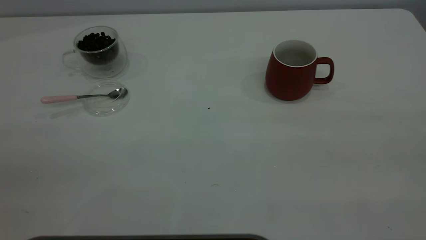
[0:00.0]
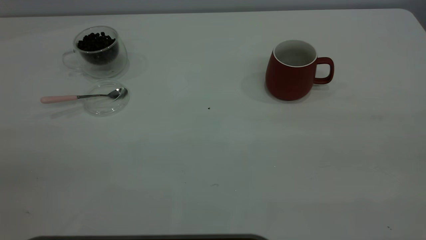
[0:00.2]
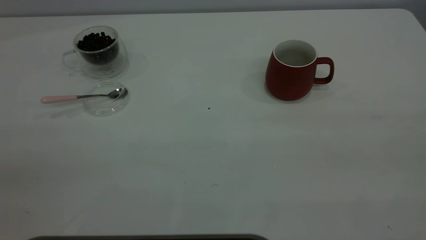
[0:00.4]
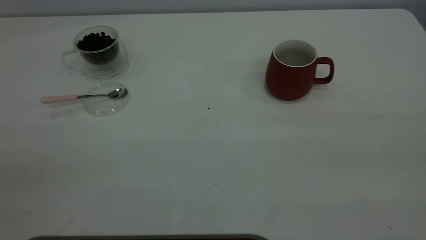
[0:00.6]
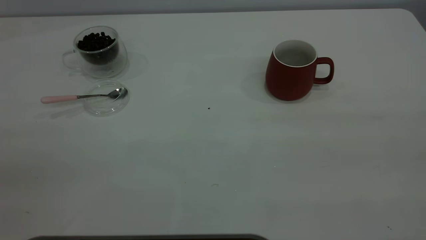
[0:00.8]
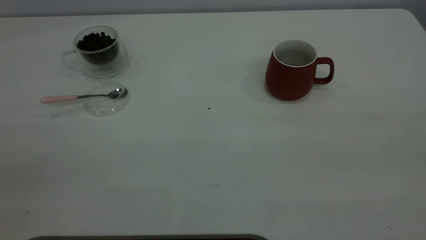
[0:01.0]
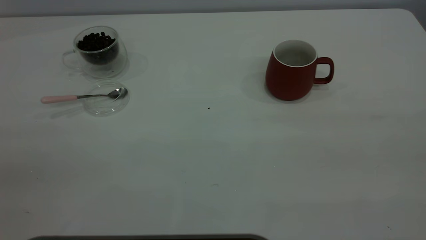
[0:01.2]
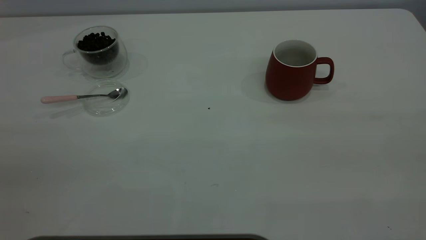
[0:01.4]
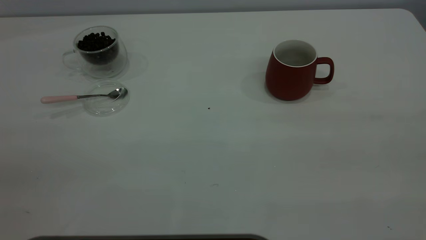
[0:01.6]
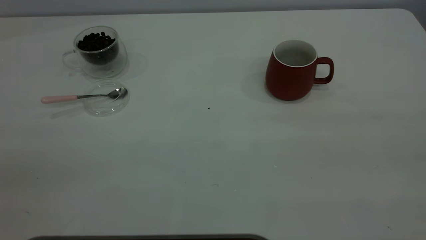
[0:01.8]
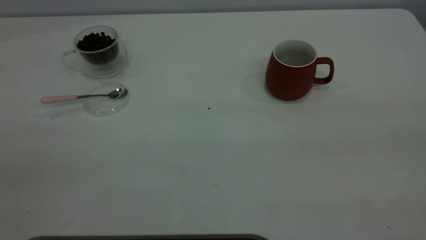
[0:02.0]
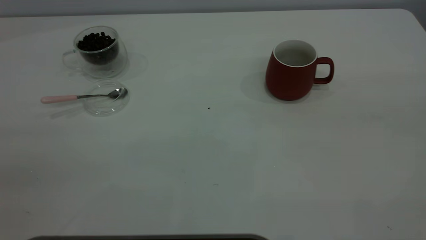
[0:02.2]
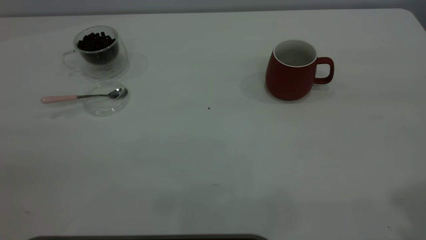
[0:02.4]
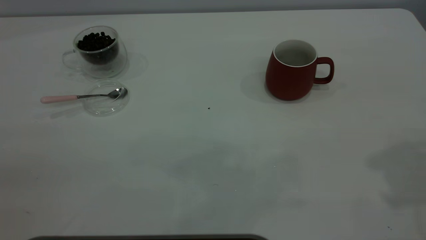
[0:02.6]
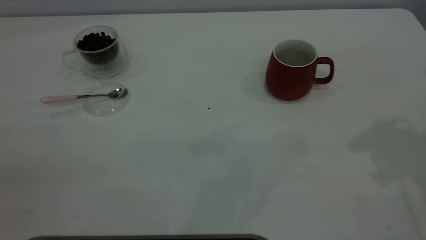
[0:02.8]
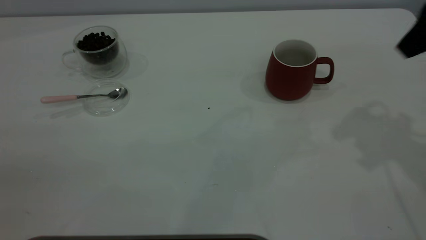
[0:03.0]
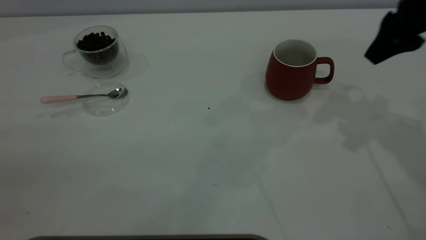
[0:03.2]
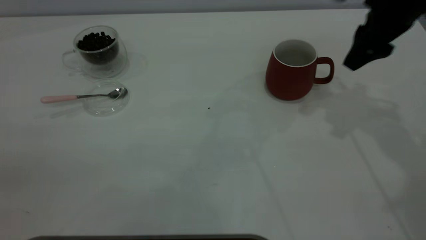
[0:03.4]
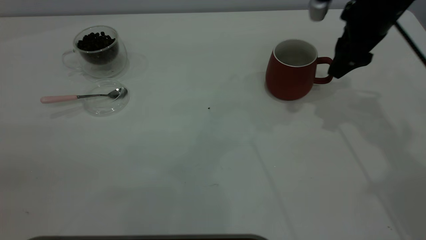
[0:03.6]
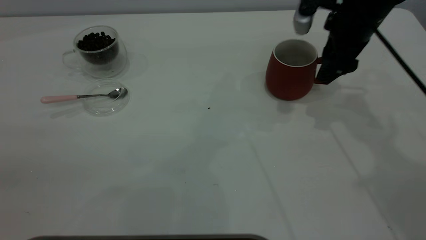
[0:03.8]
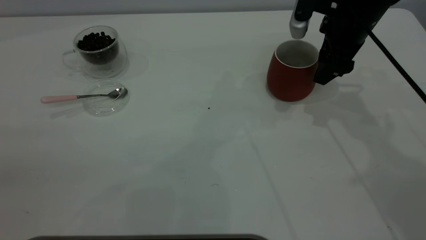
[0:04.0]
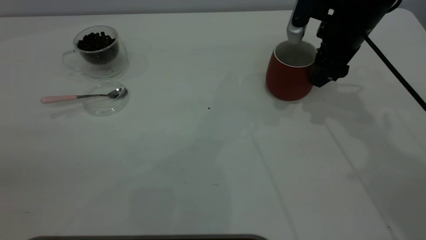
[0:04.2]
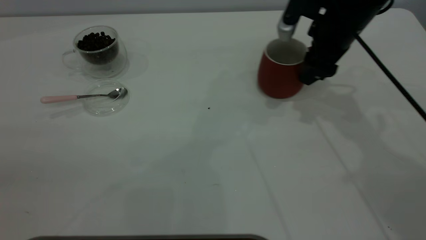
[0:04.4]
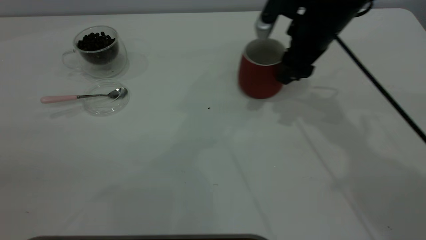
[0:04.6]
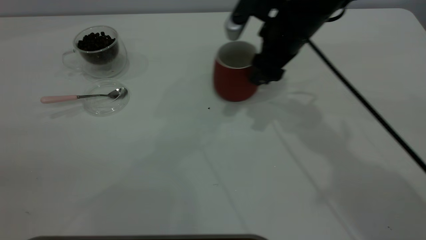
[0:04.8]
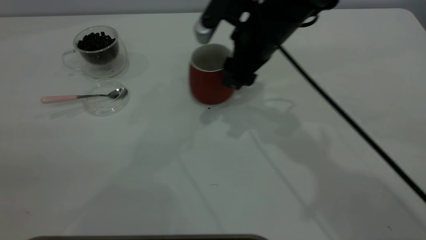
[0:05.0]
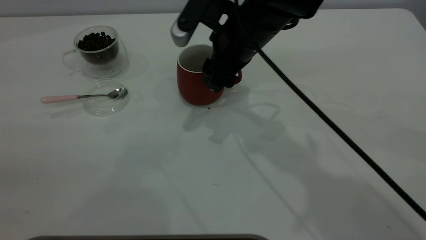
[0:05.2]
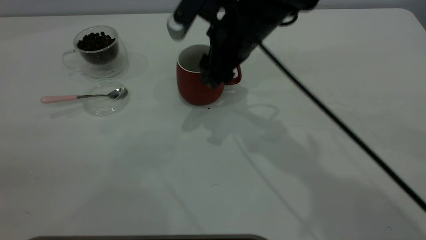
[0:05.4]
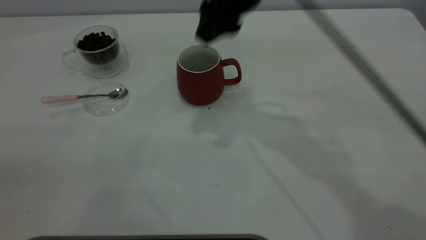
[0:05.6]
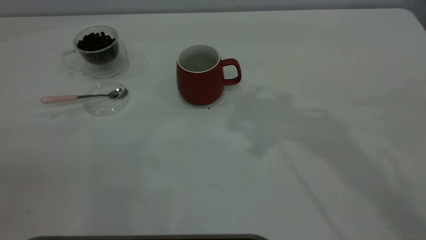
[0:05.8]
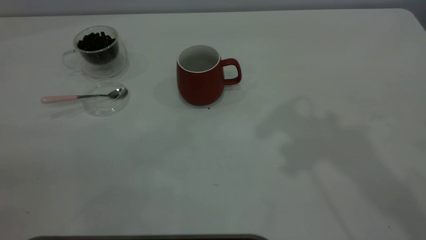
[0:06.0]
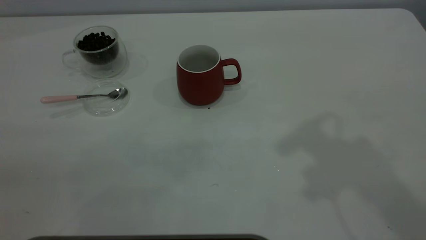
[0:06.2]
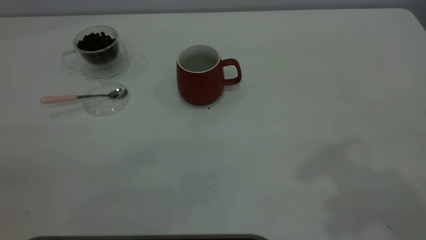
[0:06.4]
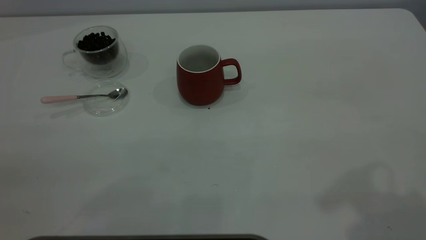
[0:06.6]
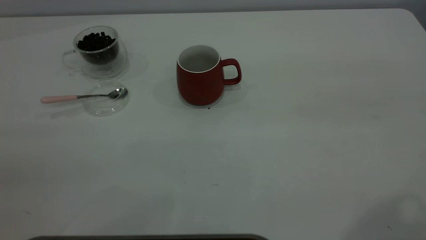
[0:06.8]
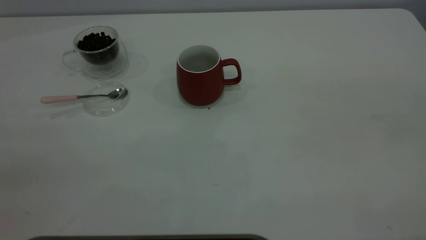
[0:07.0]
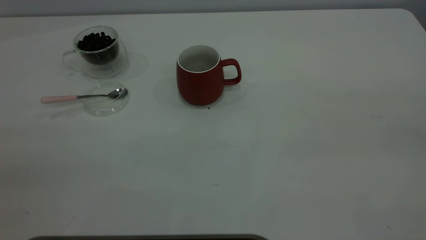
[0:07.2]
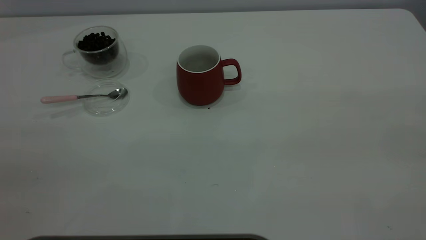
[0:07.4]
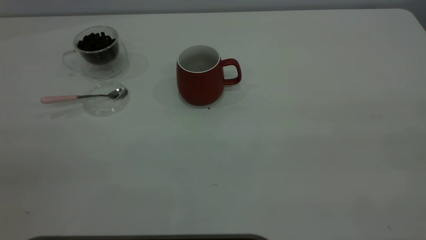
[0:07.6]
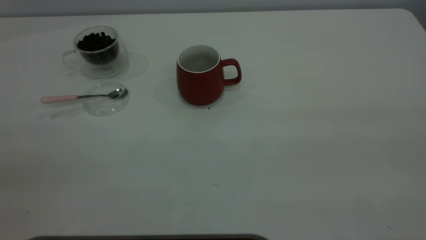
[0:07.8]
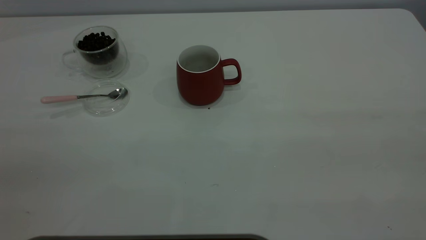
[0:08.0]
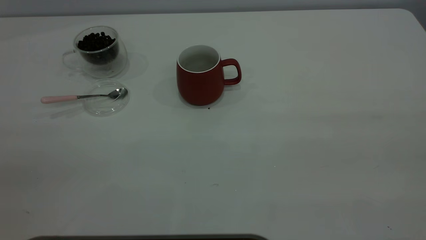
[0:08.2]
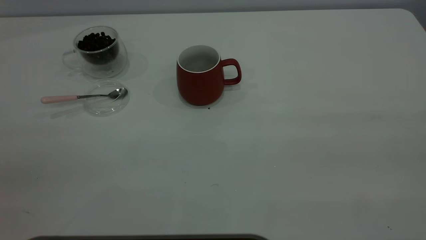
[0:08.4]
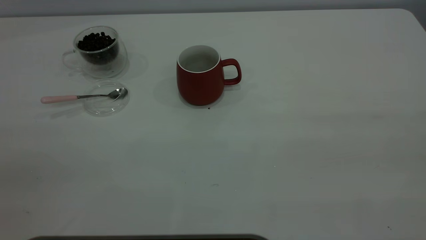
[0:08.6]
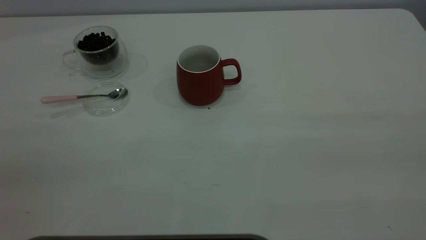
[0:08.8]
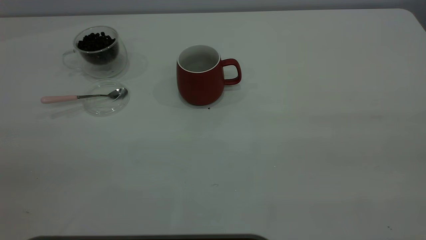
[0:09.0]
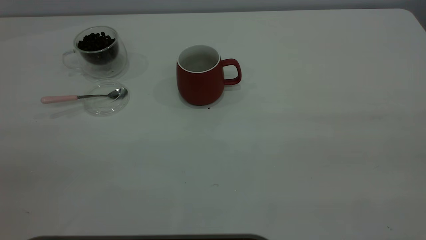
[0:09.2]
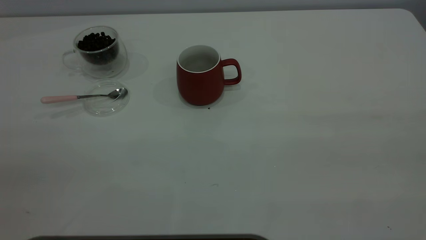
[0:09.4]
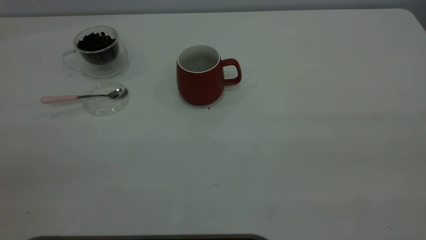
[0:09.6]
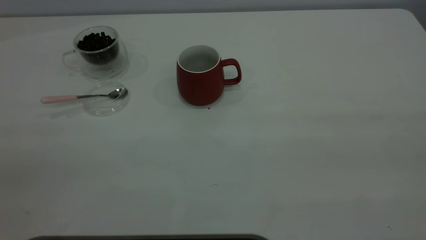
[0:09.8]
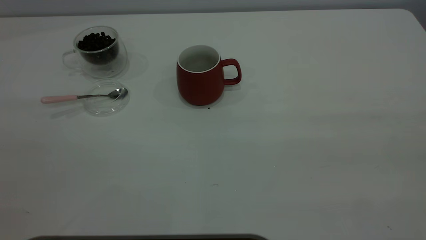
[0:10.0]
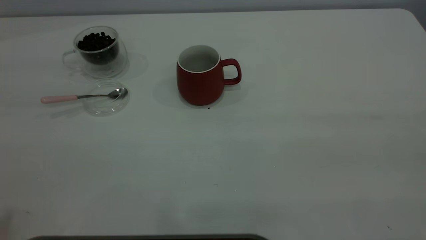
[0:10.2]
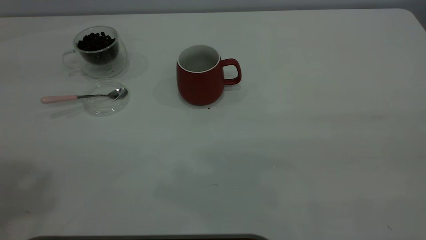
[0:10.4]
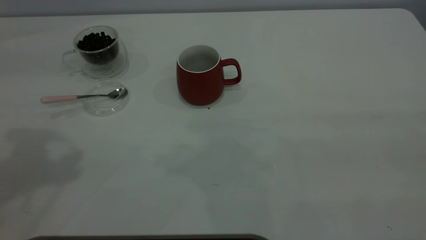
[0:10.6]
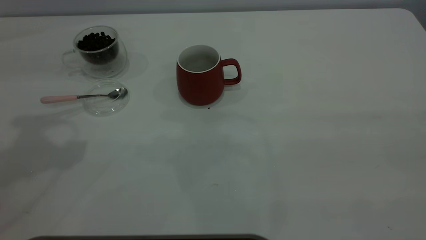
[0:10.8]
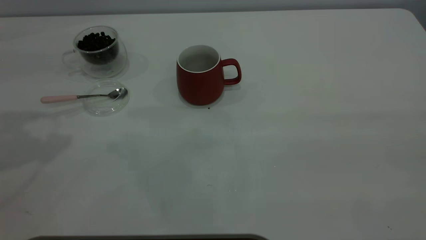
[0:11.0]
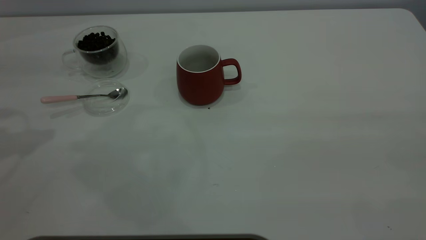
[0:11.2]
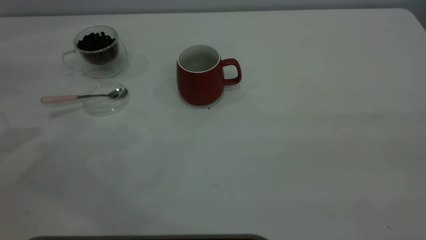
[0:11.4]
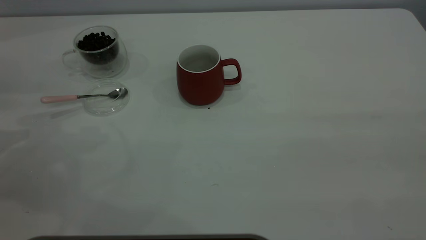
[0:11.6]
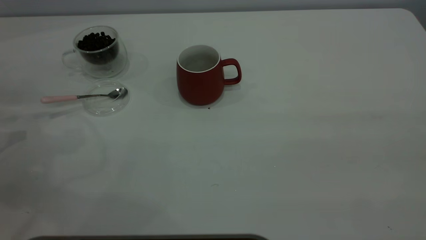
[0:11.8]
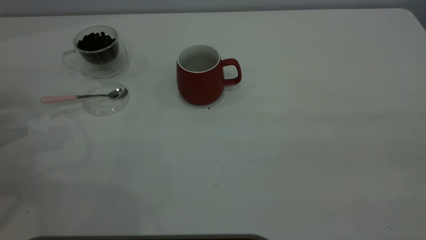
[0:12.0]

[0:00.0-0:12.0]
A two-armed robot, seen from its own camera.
Task of the whole recording: the right gripper place the red cup in the center of the table, the left gripper take the pink spoon from the cup lid and scoop out the coffee beans from the coffee cup and put them into the red cup, the left gripper put the spoon back into the cup lid.
Step, 0:00.0 to 0:05.4: Move the cup to the center of view.
0:00.0 to 0:01.6: Both grippers stay put.
0:01.6 to 0:03.0: The right gripper shifts approximately 30 cm forward.
0:03.0 to 0:04.4: The right gripper goes about 20 cm downward, forward and to the left.
0:04.4 to 0:06.0: The right gripper heads upward and backward, covering some 25 cm.

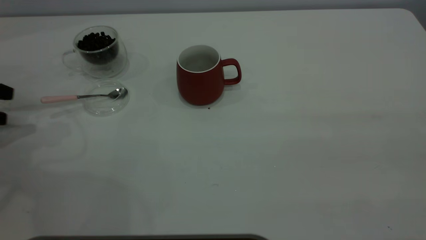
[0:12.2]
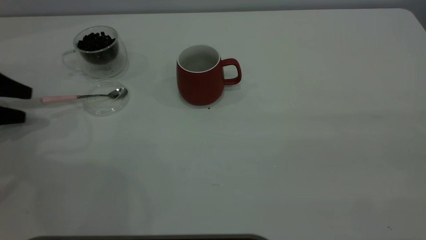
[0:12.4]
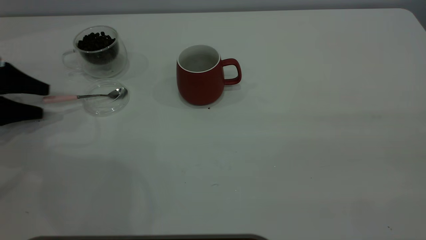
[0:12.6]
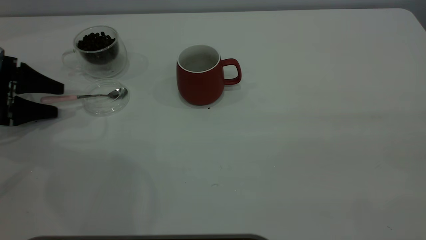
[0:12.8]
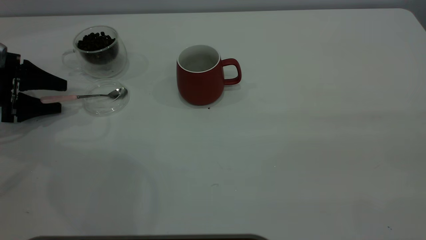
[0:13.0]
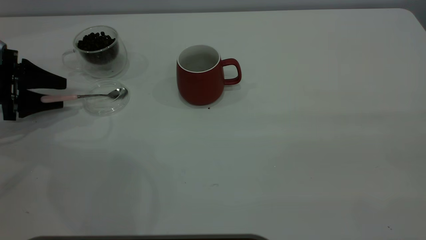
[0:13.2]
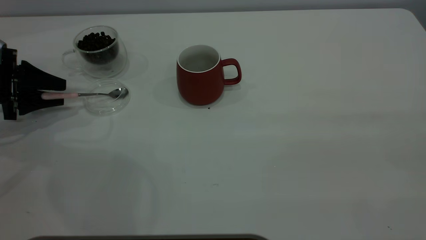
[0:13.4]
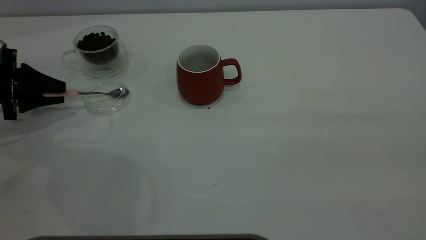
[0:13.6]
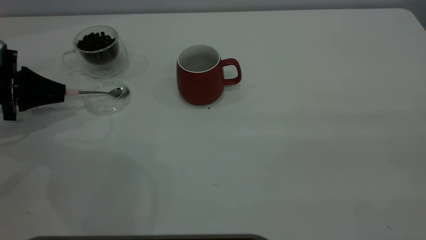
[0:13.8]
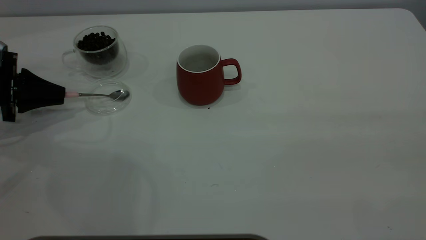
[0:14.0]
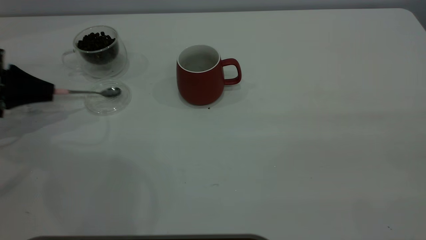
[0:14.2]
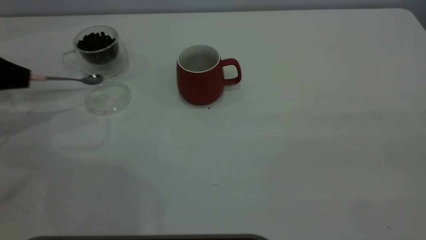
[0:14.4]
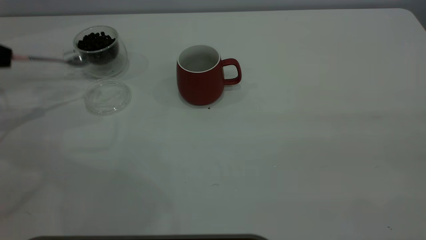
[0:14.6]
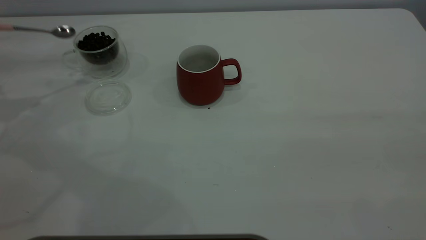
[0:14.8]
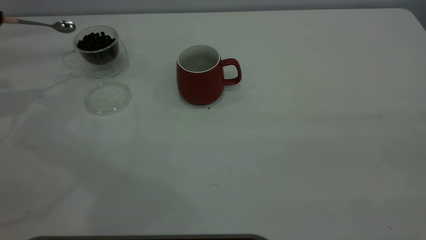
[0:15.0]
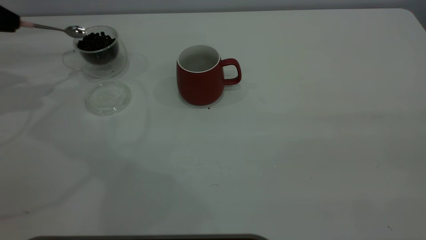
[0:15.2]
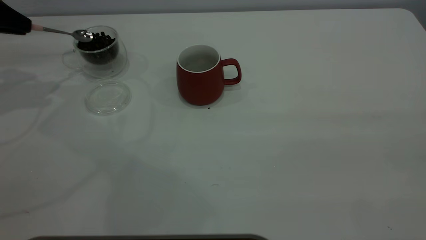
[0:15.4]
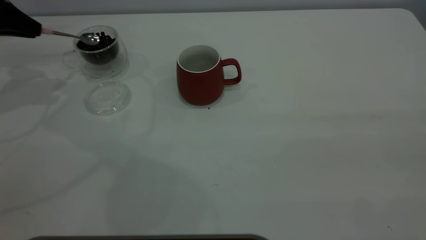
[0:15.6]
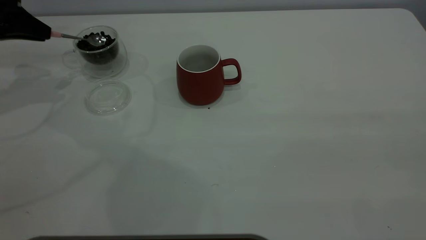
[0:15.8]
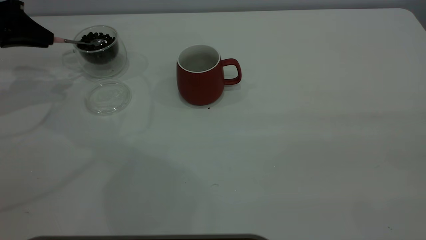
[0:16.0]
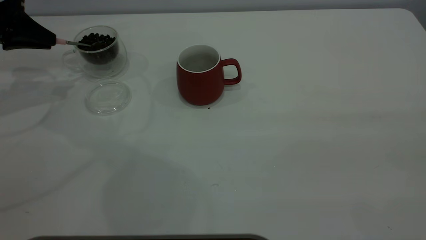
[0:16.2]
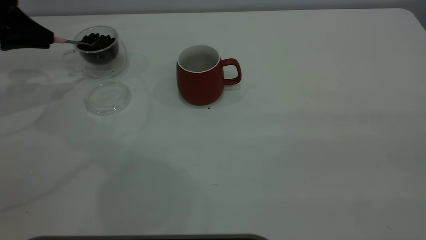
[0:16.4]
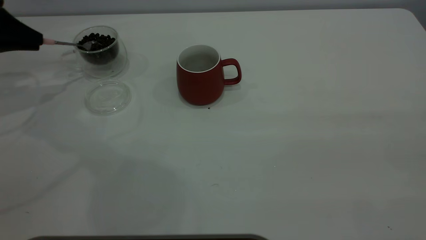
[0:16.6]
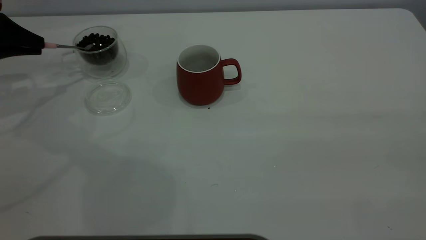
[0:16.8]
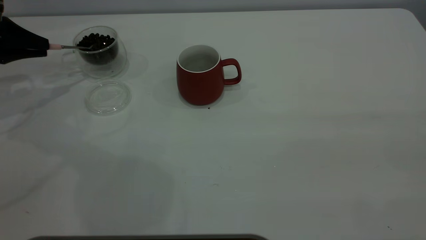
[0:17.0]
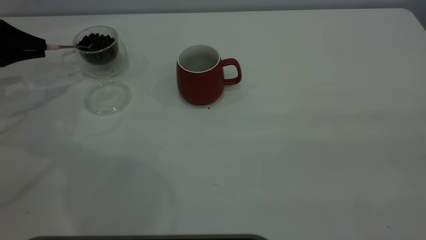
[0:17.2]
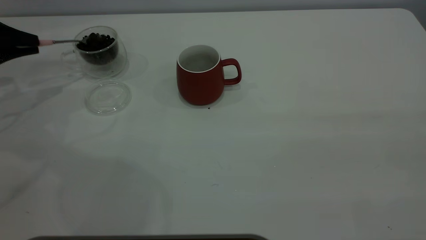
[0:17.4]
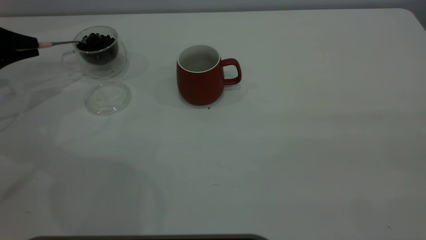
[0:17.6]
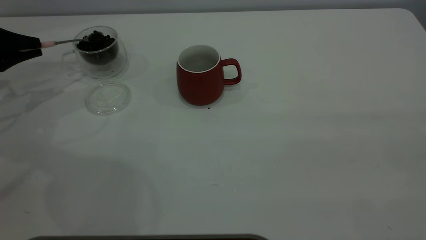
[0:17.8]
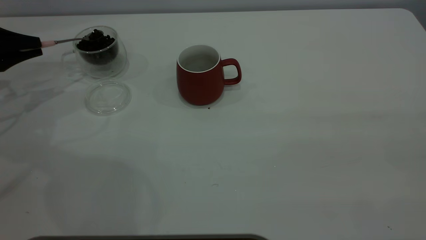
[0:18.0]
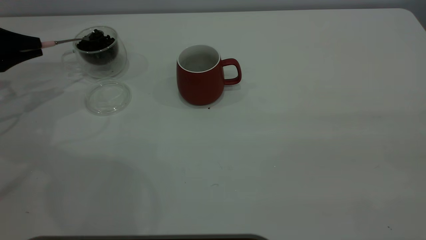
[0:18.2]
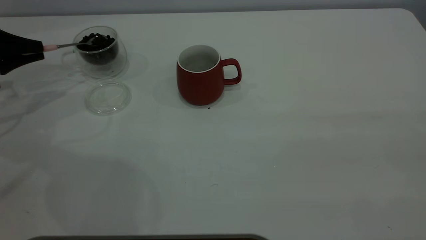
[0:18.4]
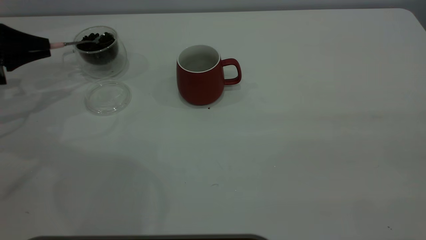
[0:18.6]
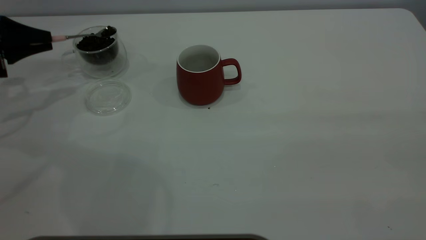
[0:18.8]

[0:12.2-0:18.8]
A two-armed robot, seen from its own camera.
Task of the whole recording: the right gripper place the red cup in the center of the table, the left gripper take the pink spoon from the cup lid and scoop out the coffee beans from the coffee cup and put them into the red cup, the left gripper put the spoon back into the cup lid.
Step, 0:12.2 to 0:14.6: Pick up the spoon.
0:12.2 to 0:13.8: The left gripper shifts roughly 5 cm to the right, and closes up.
0:13.8 to 0:15.4: The left gripper travels upward by about 15 cm.
0:15.4 to 0:17.2: The left gripper heads downward, covering roughly 5 cm.
0:17.2 to 0:18.8: There are only small adjustments of the grippers.
